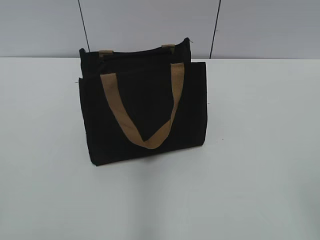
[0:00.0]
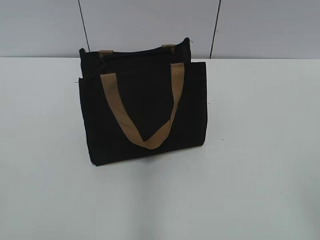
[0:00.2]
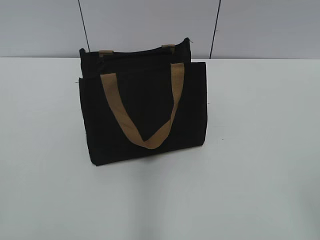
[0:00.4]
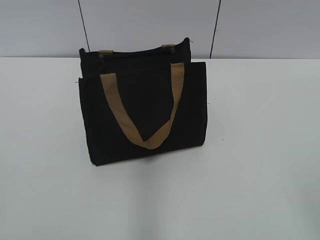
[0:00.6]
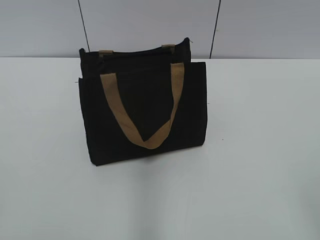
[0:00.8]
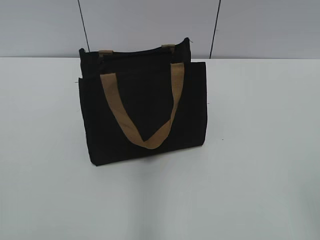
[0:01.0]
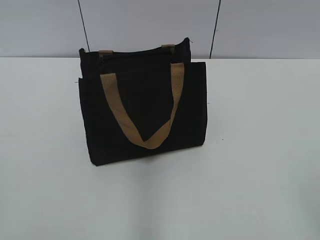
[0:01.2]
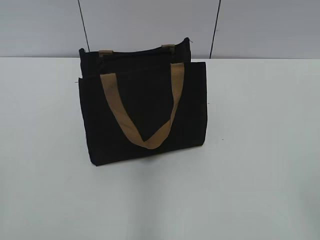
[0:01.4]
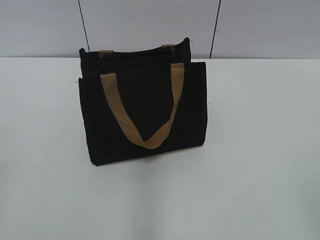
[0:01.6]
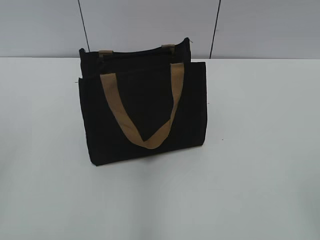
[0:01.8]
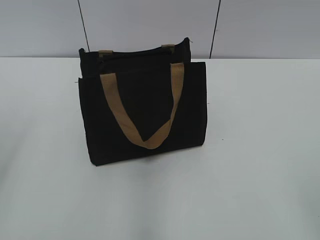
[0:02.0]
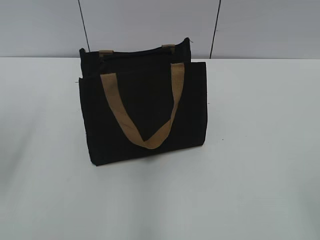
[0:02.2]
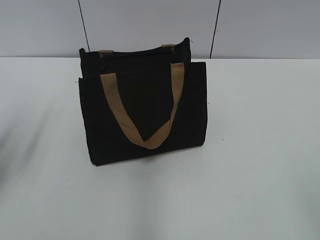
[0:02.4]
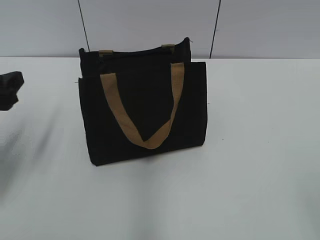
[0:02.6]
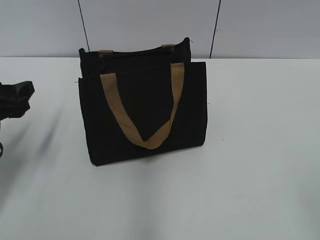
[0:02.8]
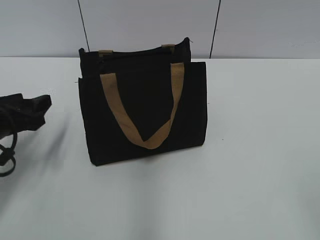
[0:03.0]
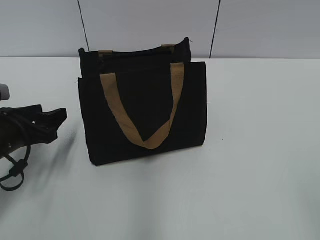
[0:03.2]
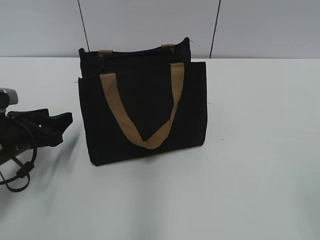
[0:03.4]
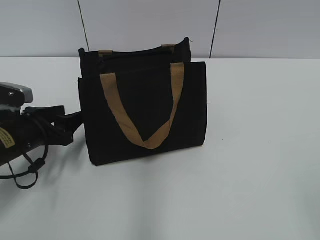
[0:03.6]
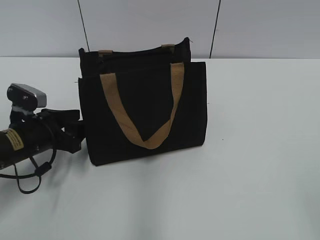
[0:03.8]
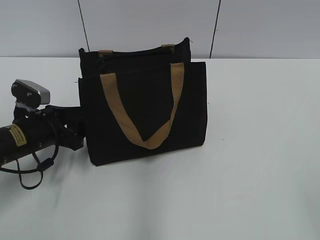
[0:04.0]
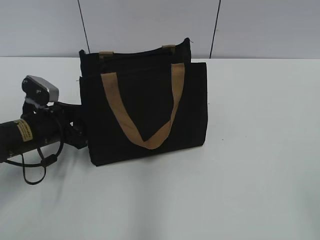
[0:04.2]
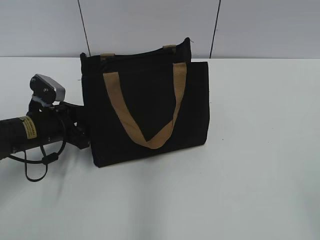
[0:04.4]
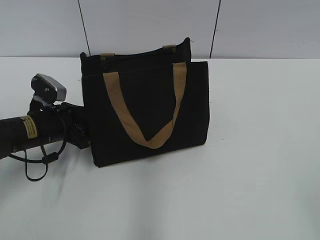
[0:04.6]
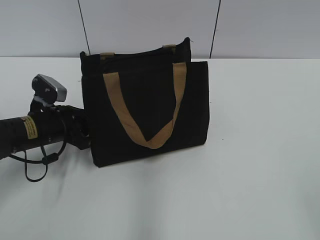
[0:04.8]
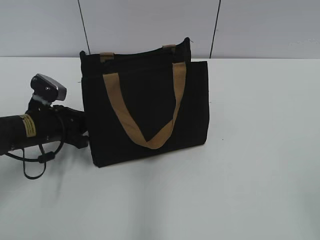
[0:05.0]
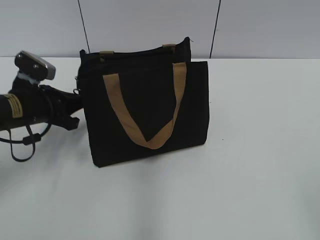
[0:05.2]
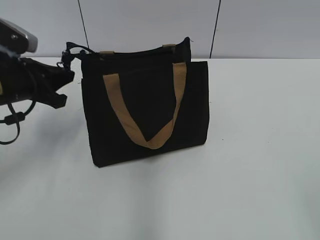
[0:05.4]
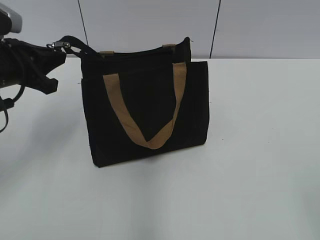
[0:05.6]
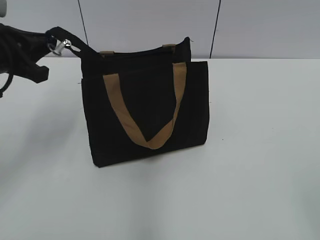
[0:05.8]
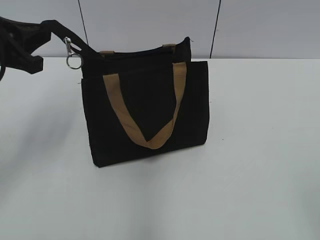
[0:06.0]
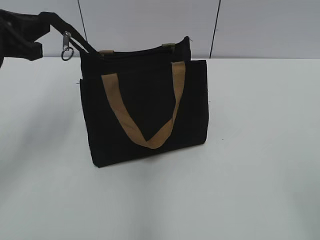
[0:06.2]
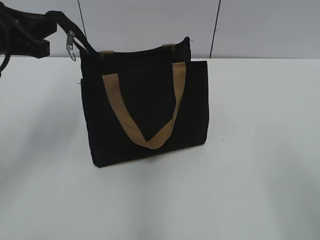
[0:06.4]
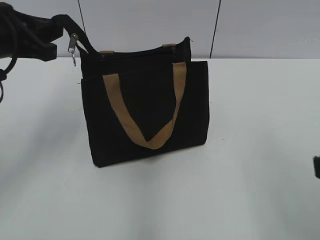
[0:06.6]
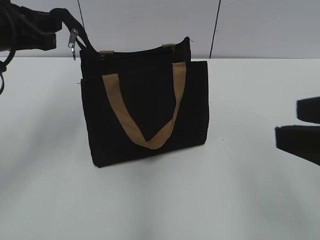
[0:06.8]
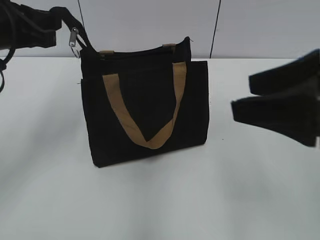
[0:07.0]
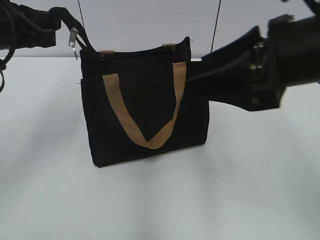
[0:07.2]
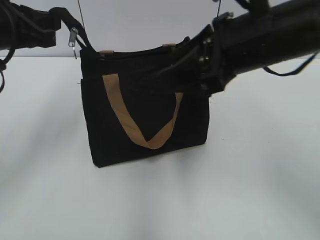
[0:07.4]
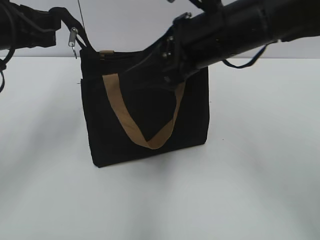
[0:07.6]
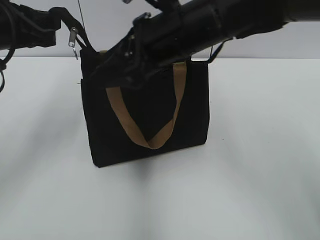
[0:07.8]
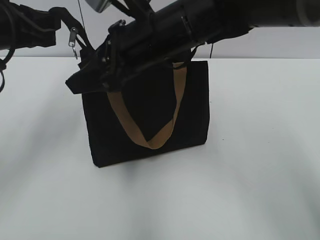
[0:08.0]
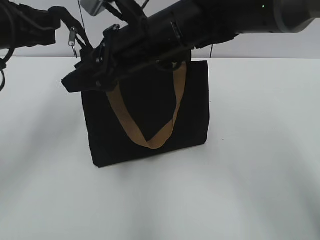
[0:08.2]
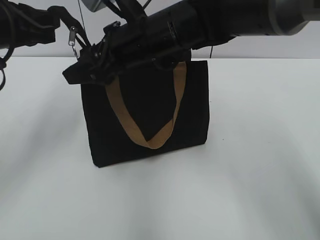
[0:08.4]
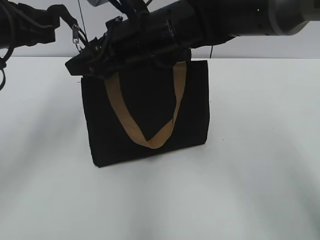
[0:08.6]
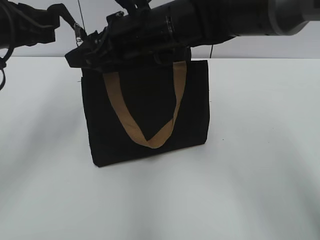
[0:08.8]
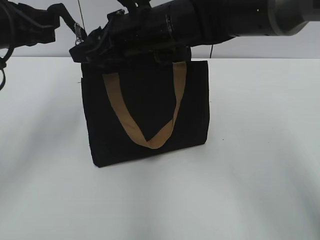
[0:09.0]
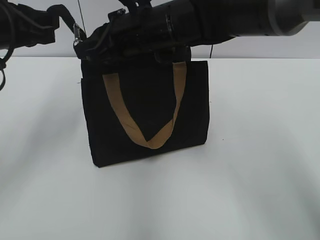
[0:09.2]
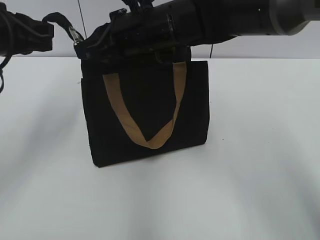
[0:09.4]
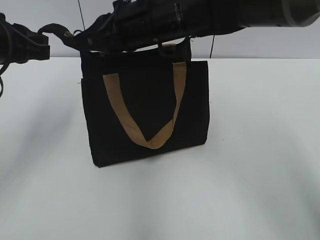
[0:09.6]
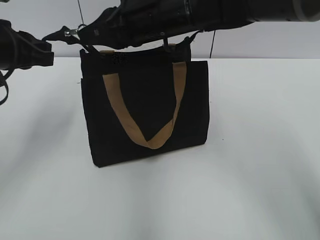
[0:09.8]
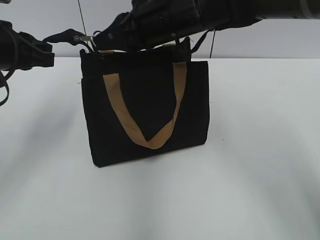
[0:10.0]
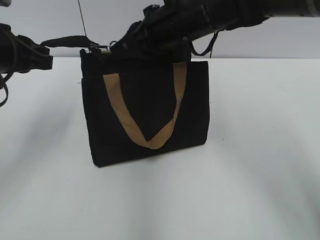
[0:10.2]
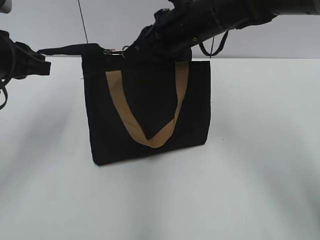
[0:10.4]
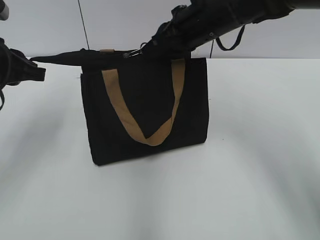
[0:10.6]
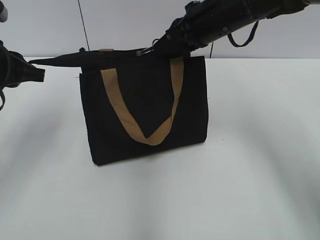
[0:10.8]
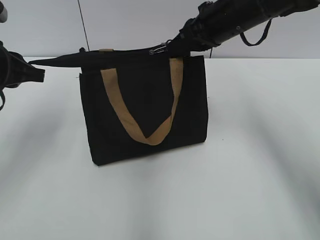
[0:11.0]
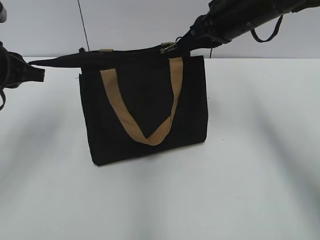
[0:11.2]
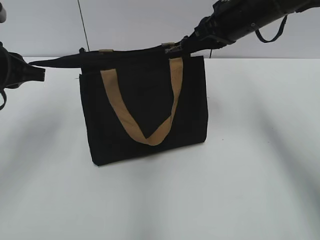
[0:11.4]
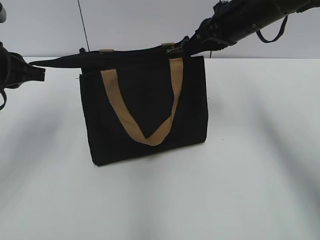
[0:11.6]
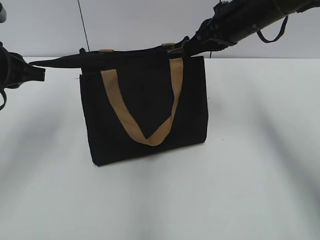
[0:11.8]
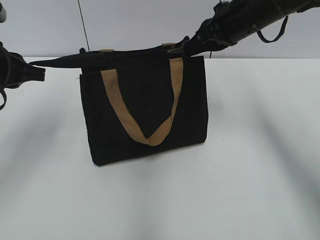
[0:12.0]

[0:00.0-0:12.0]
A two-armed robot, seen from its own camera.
0:01.6 to 0:03.0: The left gripper travels forward and downward by about 25 cm.
0:03.0 to 0:04.4: The left gripper is displaced downward, to the right and forward by some 10 cm.
0:04.4 to 0:06.0: The left gripper goes roughly 15 cm upward, and closes its fingers.
0:06.0 to 0:07.6: The right gripper goes roughly 35 cm forward and to the left.
0:07.6 to 0:09.0: The right gripper goes some 10 cm to the left and forward, and closes.
0:09.0 to 0:10.4: The right gripper moves to the right, some 5 cm, and closes.
0:10.4 to 0:12.0: The right gripper heads to the right, covering about 10 cm.

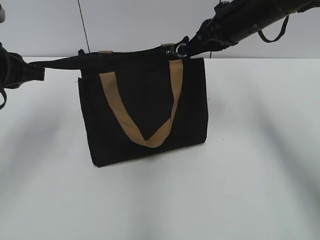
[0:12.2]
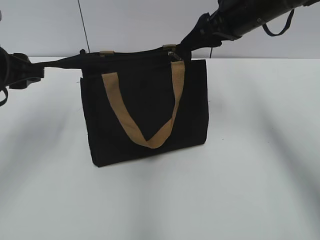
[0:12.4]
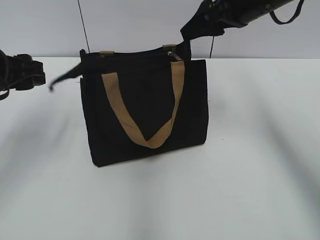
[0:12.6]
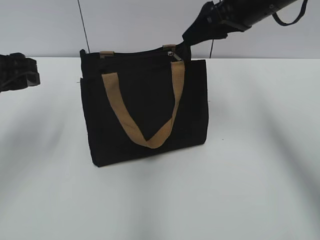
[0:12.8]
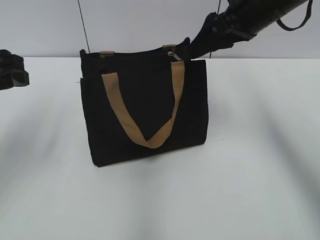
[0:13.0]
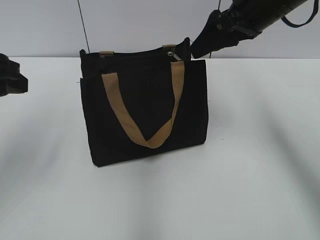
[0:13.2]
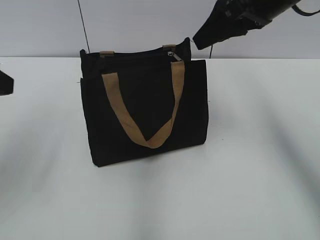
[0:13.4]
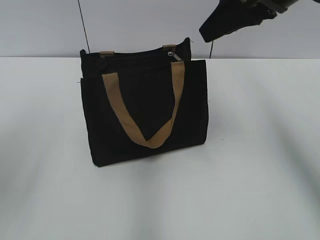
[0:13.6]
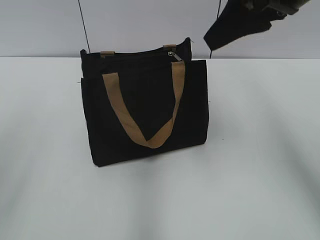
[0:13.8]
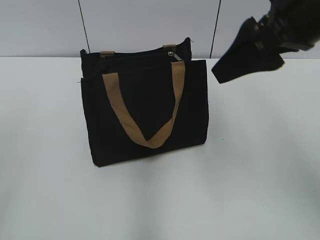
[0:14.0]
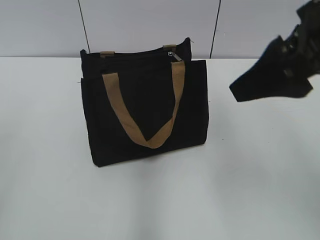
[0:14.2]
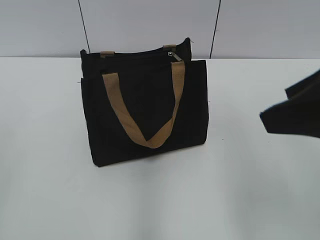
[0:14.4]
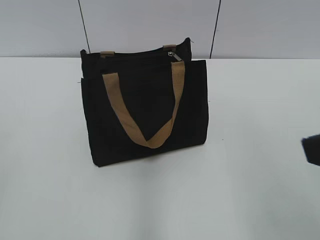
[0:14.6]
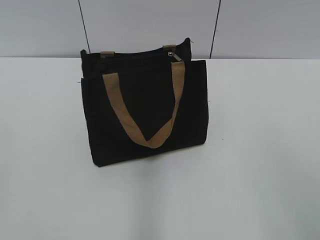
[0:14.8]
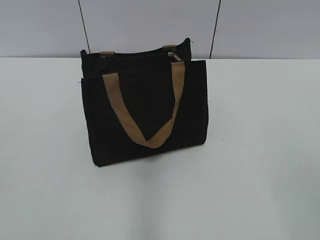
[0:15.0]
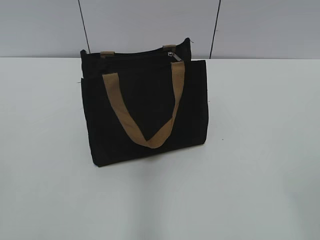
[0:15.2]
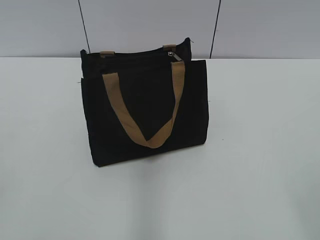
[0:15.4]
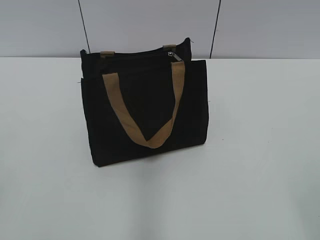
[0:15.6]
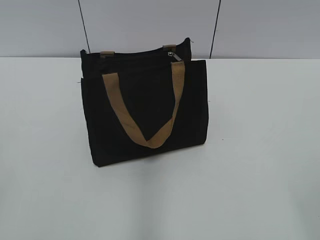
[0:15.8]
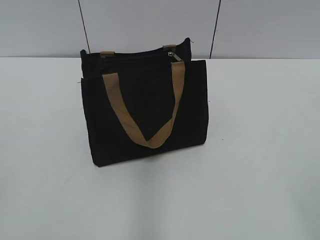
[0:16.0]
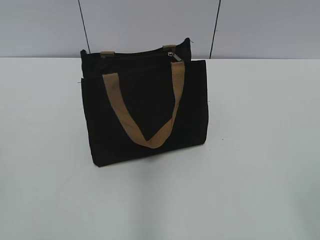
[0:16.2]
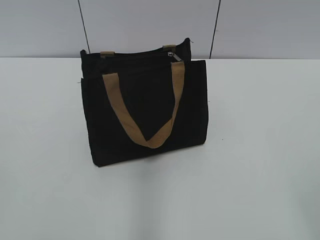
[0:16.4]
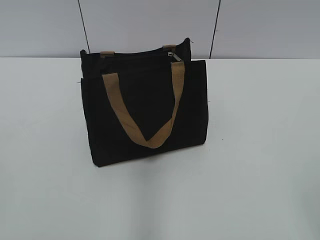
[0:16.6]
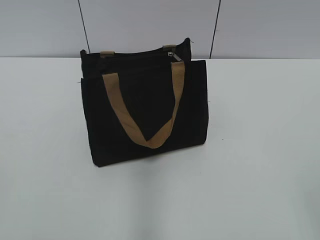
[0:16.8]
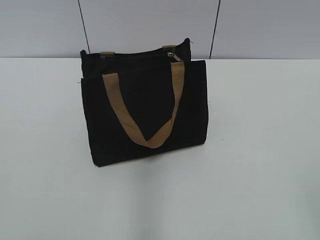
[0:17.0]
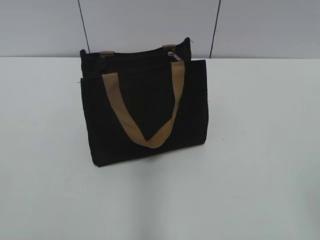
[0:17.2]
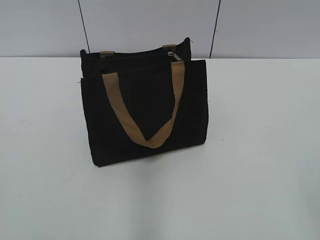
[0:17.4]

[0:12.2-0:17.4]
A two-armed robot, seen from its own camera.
0:12.2 to 0:14.0: Both grippers travel together backward and upward, roughly 20 cm. The right gripper opens. Meanwhile the left gripper opens up.
0:14.0 to 0:15.6: The right gripper moves backward and to the right, approximately 30 cm.
